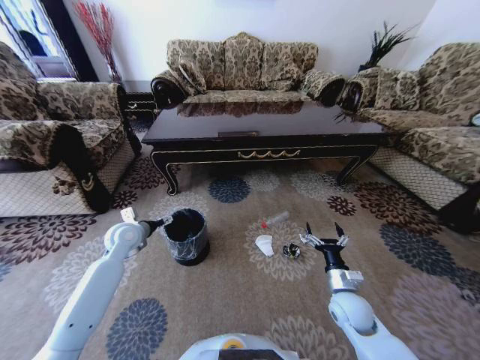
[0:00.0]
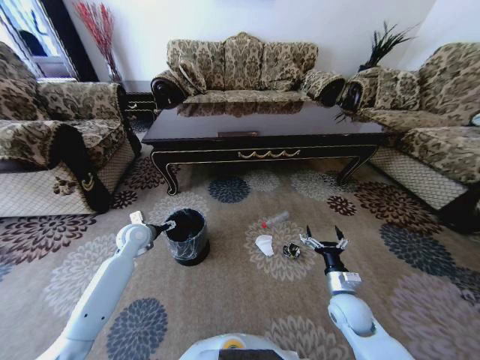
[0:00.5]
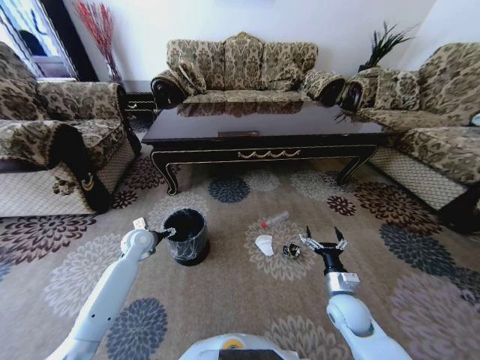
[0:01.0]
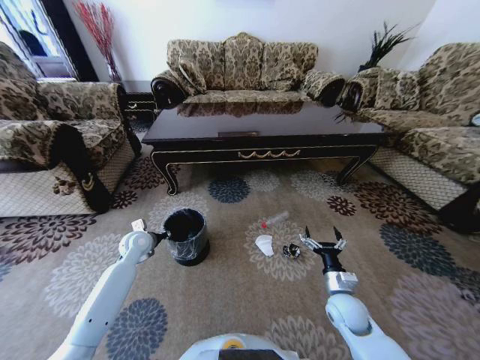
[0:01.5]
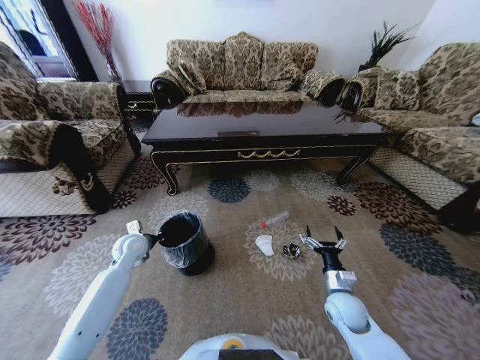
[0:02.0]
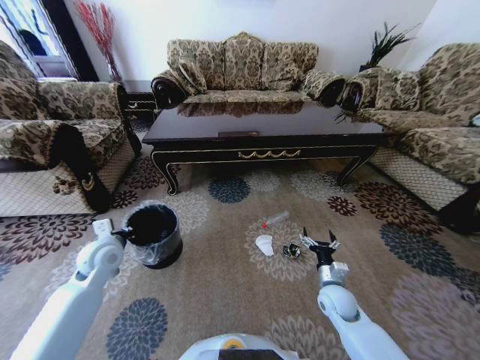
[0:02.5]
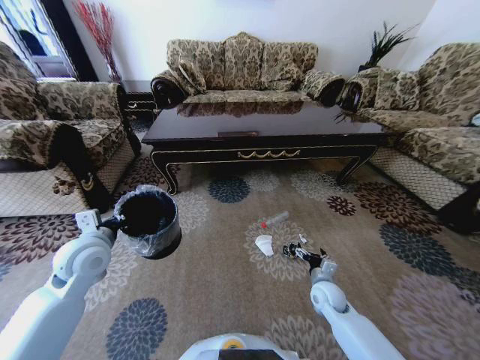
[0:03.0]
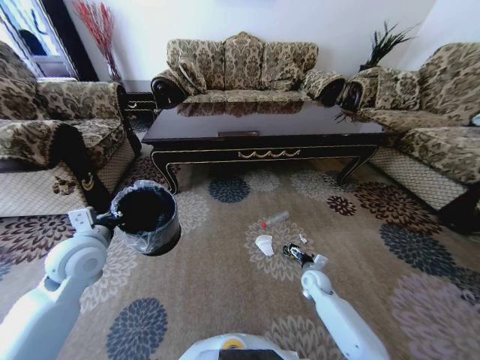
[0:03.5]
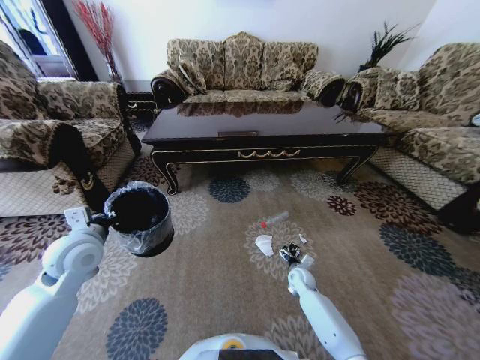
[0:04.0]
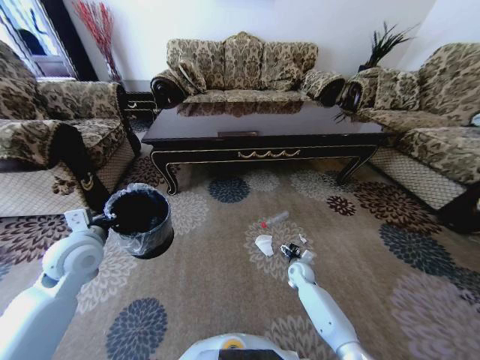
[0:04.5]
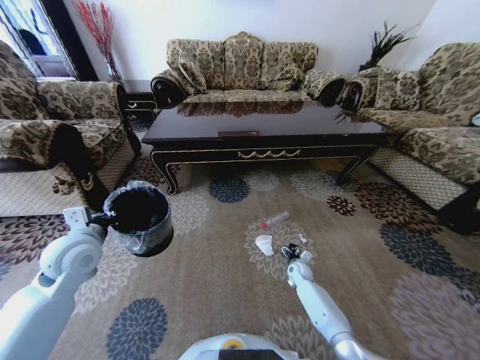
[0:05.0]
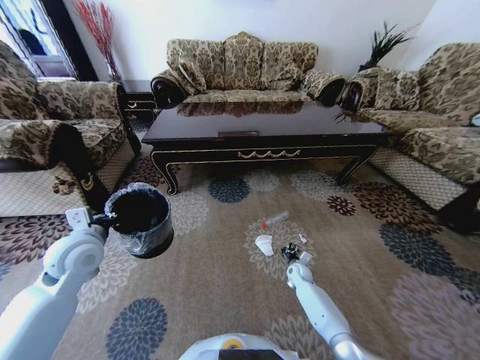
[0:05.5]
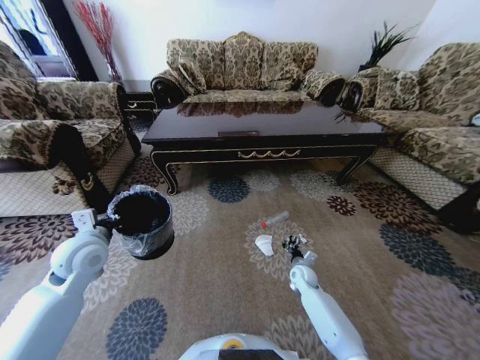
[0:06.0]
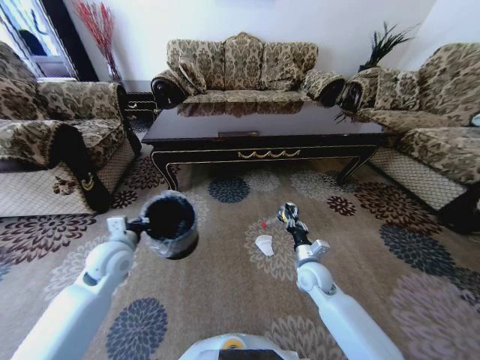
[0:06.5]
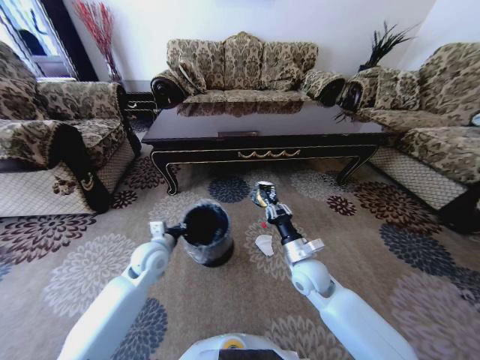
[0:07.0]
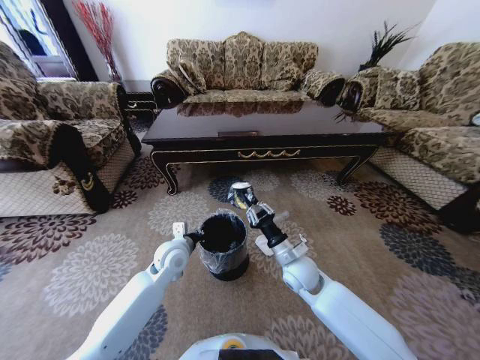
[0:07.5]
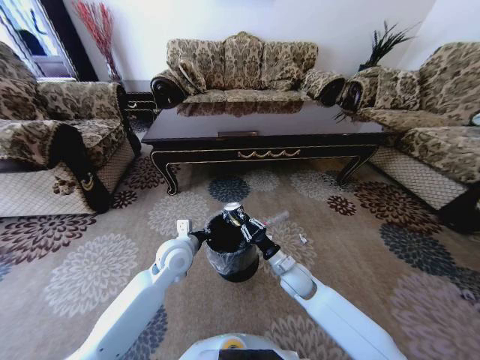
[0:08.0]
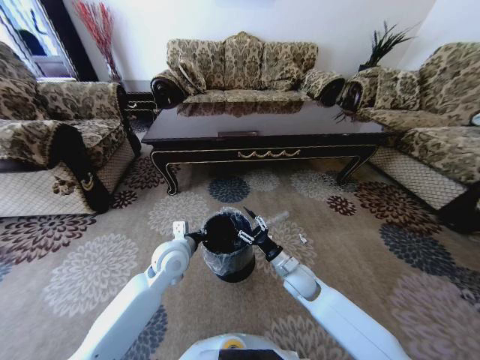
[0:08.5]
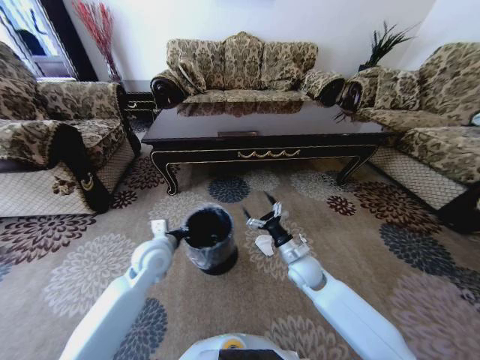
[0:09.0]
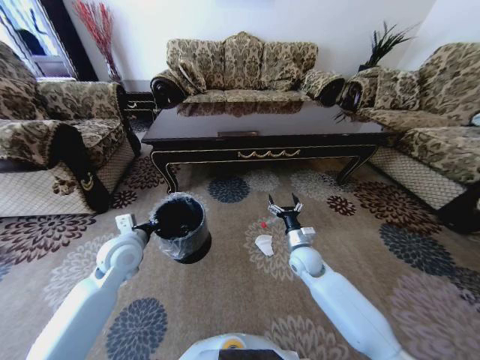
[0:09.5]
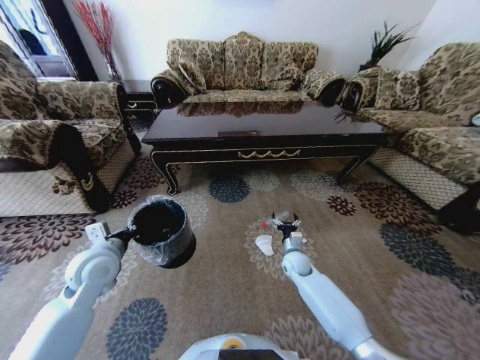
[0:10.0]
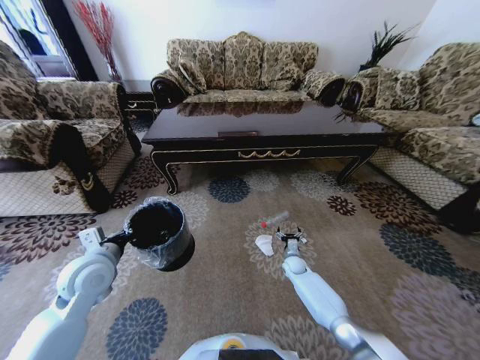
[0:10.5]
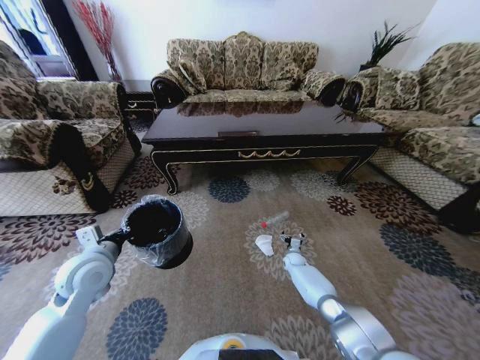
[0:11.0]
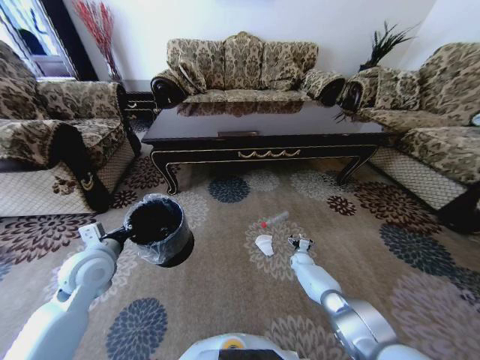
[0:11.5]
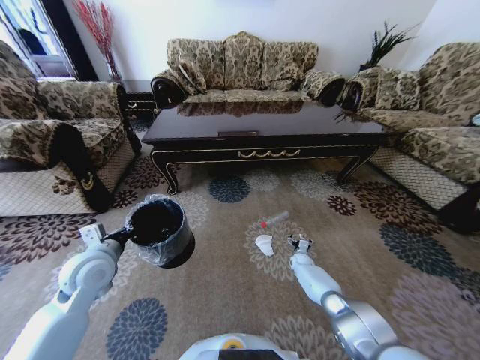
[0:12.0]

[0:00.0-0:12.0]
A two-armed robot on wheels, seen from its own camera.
Task of the whole recording: Move to the front of the table and pick up the trash from the floor, then place it into the trash bin.
0:00.0 to 0:02.0: The left gripper closes.
0:02.0 to 0:04.0: The left gripper heads upward and backward, covering some 15 cm. The right gripper travels forward and downward by approximately 15 cm.
0:04.0 to 0:06.0: The right gripper closes its fingers.
0:06.0 to 0:08.0: The left gripper goes about 20 cm to the right, while the right gripper moves upward, to the left and backward, some 15 cm.
0:08.0 to 0:10.0: The right gripper travels forward and downward by approximately 10 cm, and opens its fingers; the left gripper goes approximately 15 cm to the left.
0:10.0 to 0:12.0: The right gripper is displaced downward, to the right and forward by about 20 cm.

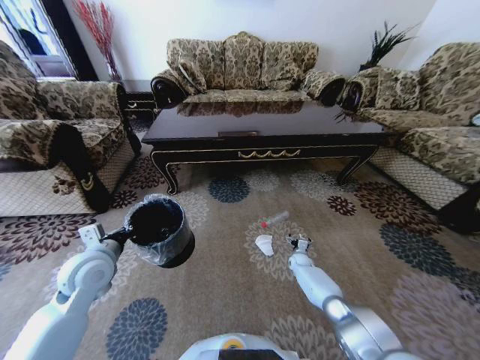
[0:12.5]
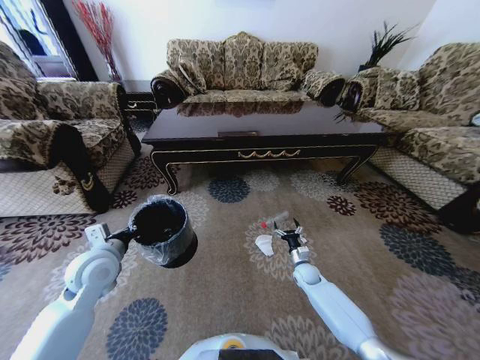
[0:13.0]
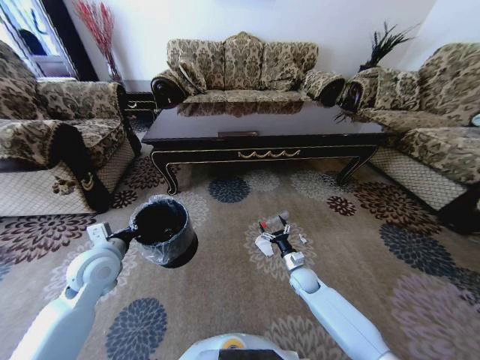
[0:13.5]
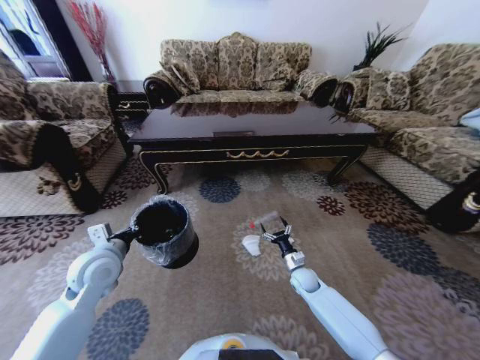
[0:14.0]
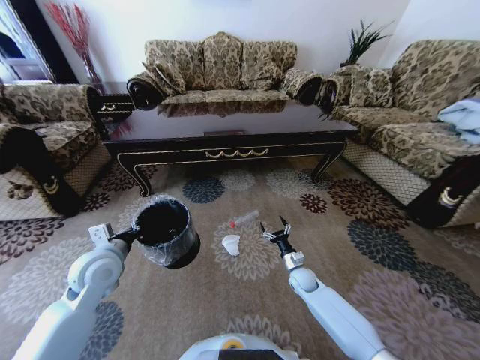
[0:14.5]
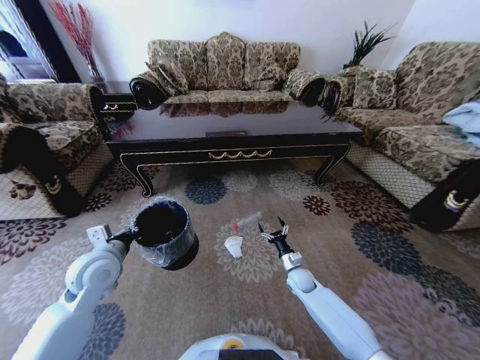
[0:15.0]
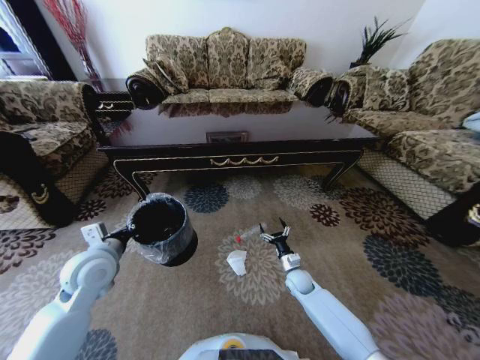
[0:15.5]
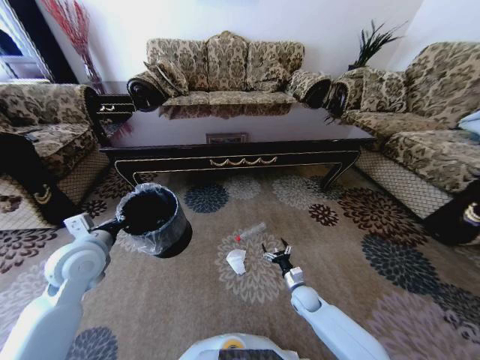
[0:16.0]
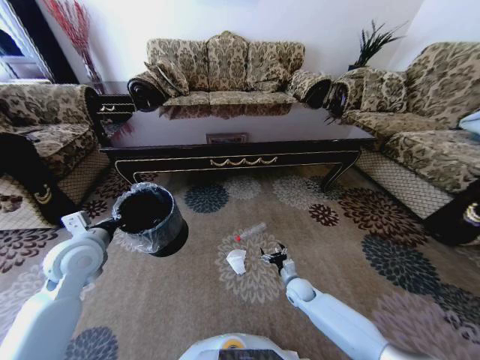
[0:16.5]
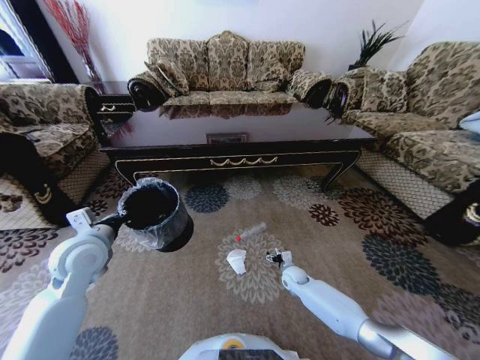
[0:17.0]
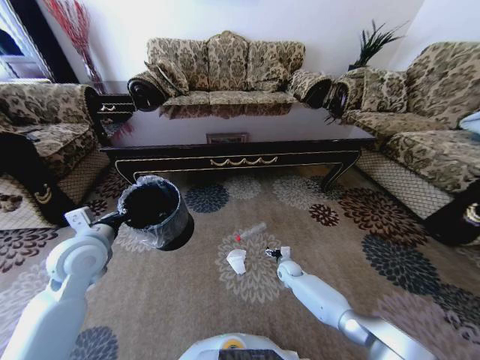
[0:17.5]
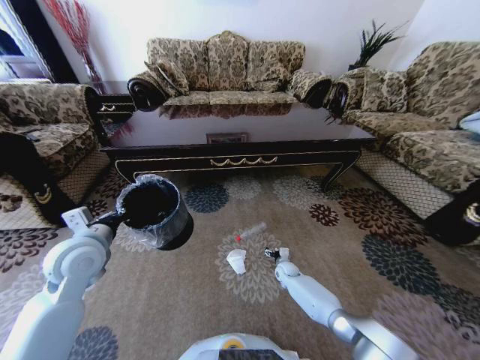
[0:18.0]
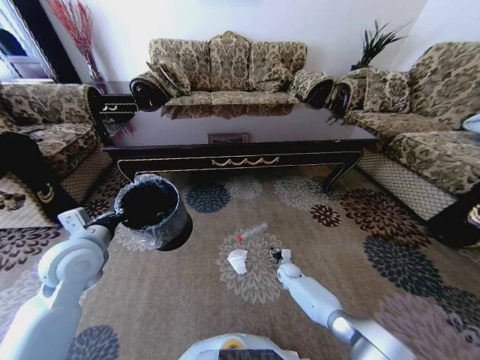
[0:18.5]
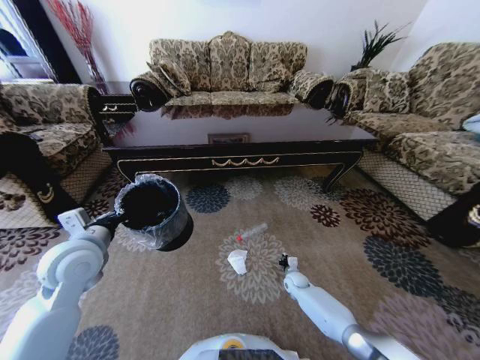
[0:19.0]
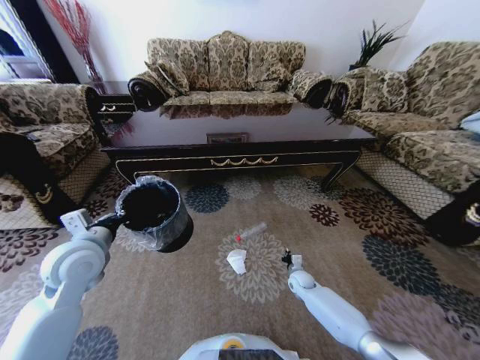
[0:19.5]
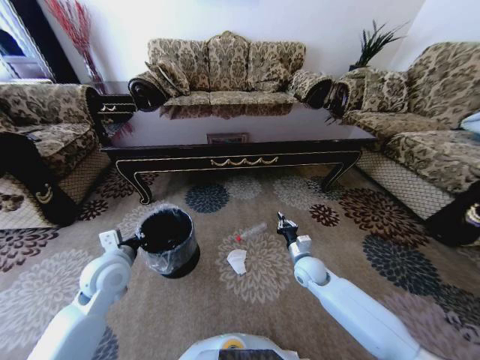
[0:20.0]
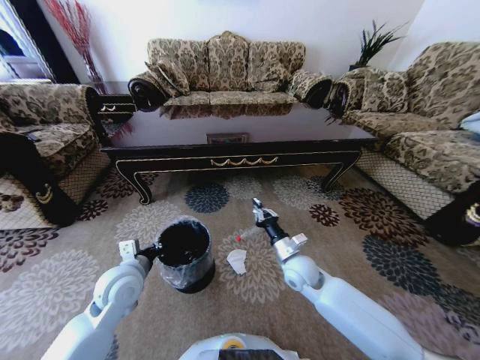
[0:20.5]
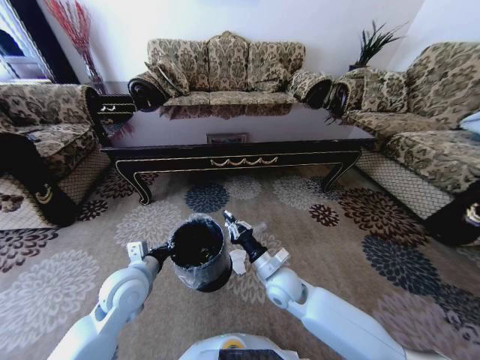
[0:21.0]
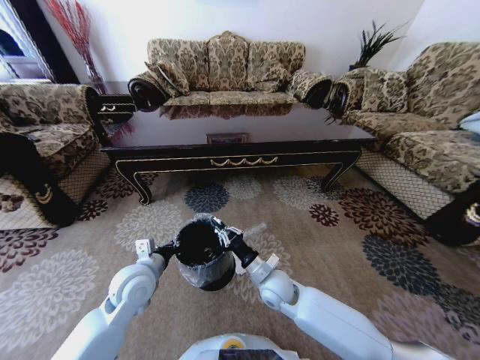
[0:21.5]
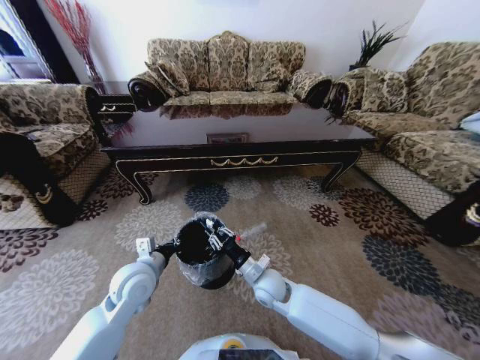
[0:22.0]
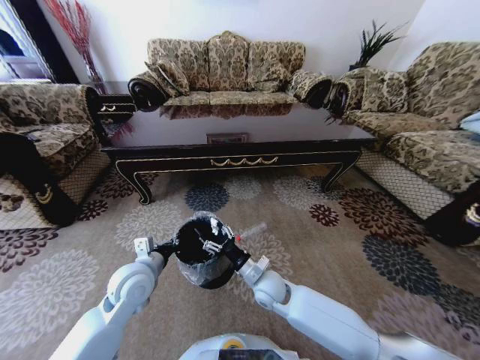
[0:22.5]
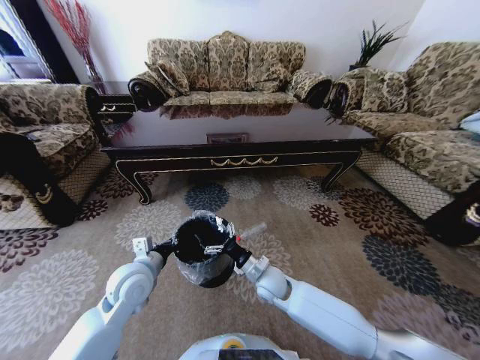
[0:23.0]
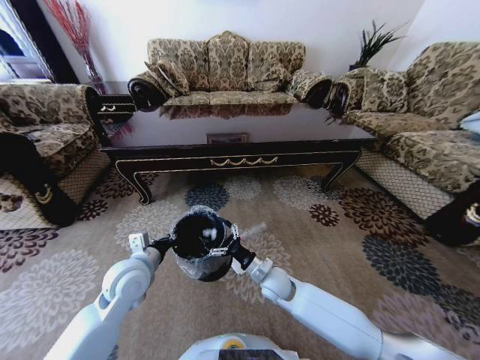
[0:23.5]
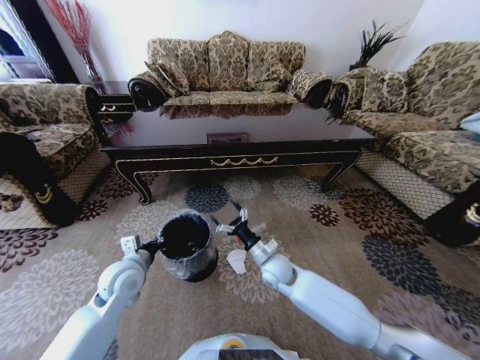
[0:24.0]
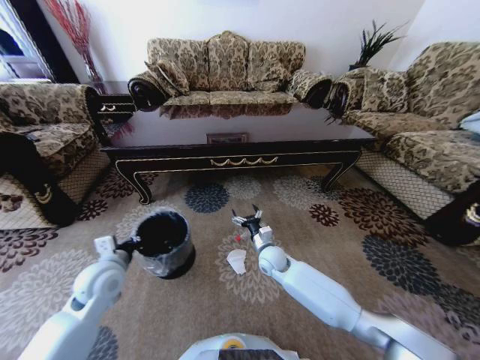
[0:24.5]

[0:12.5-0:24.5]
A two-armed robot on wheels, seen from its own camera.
Task of the whole recording: Move to the front of the table and pick up the trash from the floor, then place it into the trash bin.
0:12.5 to 0:14.5: The right gripper shifts some 10 cm backward and upward.
0:16.5 to 0:18.5: The right gripper heads forward and downward, covering approximately 10 cm.
0:18.5 to 0:20.5: The right gripper travels upward and backward by about 25 cm, and closes its fingers, while the left gripper goes about 10 cm downward and to the right.
0:20.5 to 0:22.5: The right gripper moves to the left, about 10 cm, and opens its fingers.
0:22.5 to 0:24.5: The right gripper is displaced forward by approximately 10 cm, while the left gripper heads to the left, covering some 10 cm.

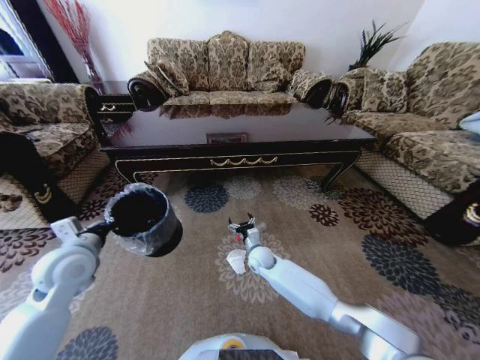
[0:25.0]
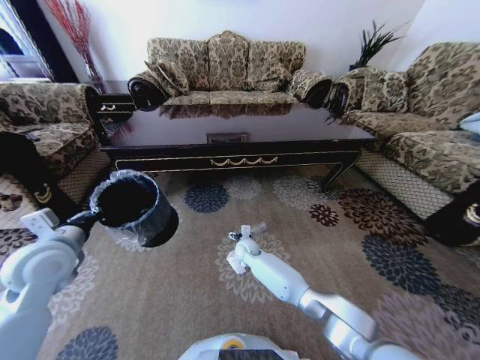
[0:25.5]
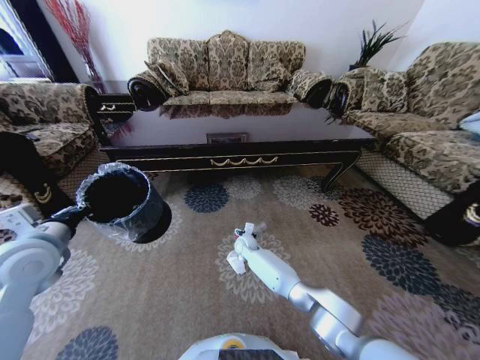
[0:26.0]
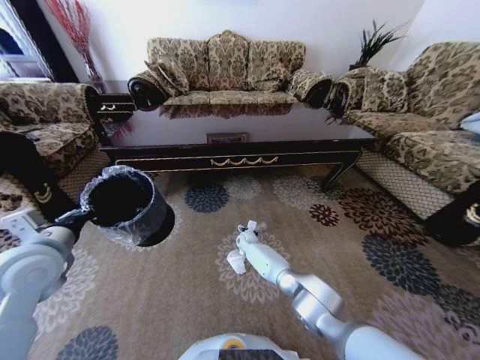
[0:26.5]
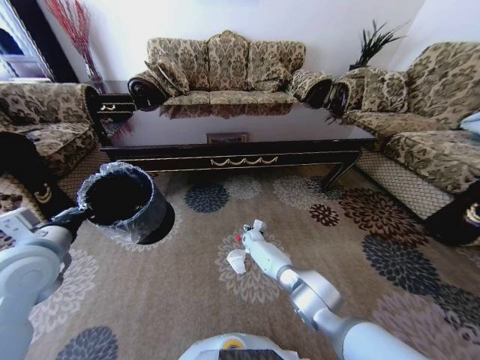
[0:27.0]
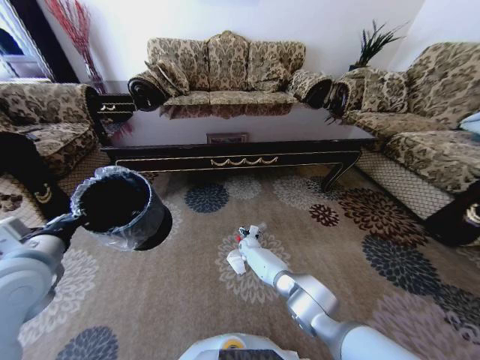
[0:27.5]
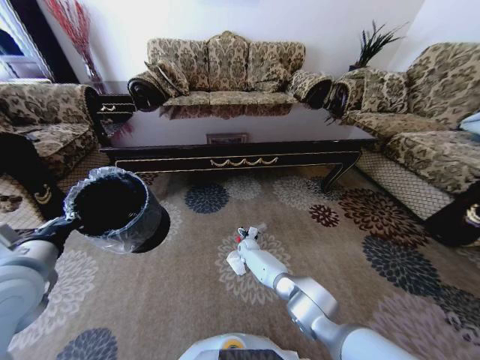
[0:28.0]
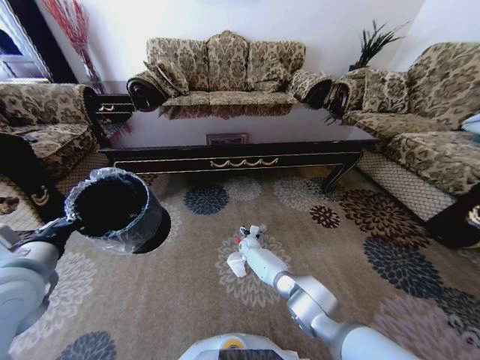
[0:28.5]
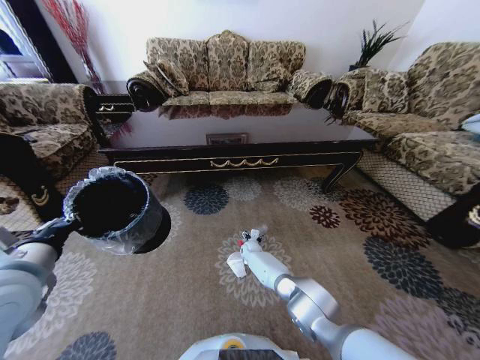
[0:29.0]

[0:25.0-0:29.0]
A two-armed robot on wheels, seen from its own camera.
Task of the whole recording: Move to the front of the table and pick up the trash from the floor, then place it into the trash bin.
0:25.0 to 0:27.0: The left gripper shifts approximately 5 cm upward. Meanwhile the right gripper goes approximately 15 cm forward and downward.
0:27.0 to 0:29.0: The right gripper moves roughly 5 cm; the left gripper changes place by some 5 cm.
